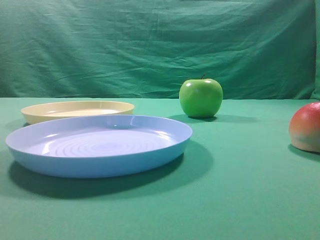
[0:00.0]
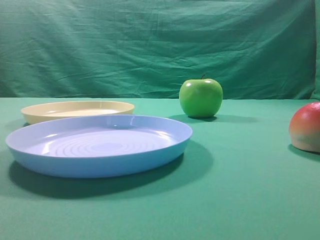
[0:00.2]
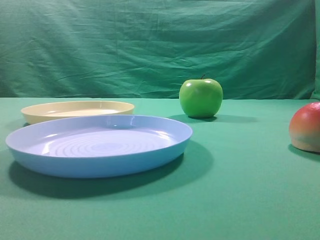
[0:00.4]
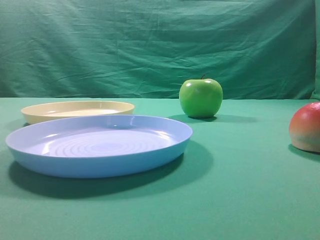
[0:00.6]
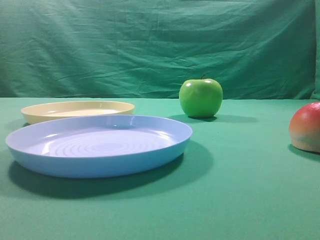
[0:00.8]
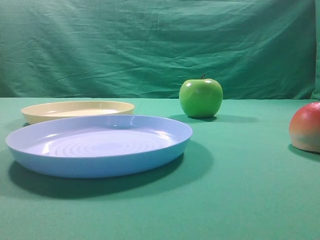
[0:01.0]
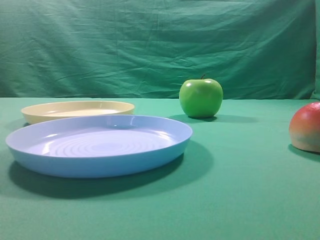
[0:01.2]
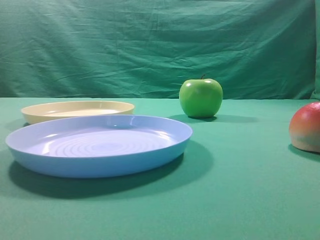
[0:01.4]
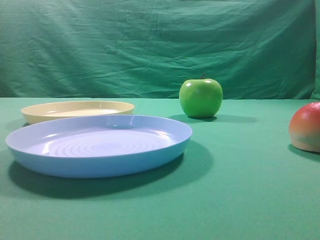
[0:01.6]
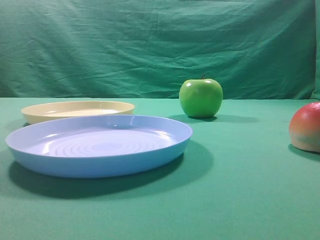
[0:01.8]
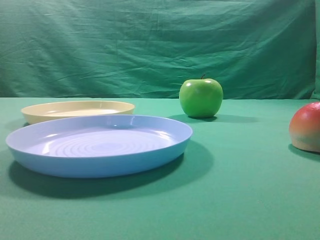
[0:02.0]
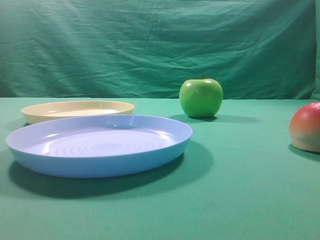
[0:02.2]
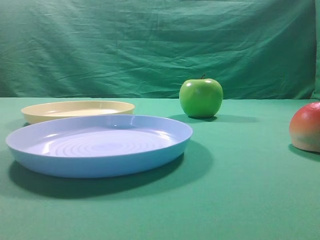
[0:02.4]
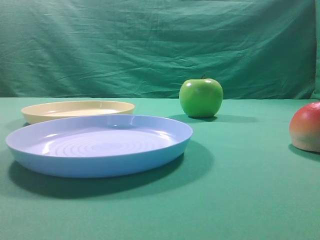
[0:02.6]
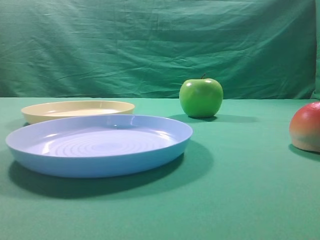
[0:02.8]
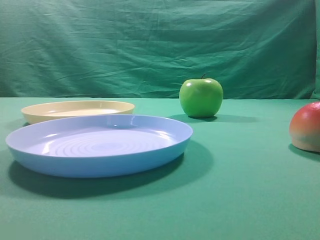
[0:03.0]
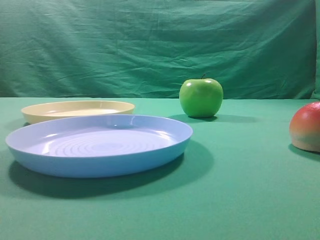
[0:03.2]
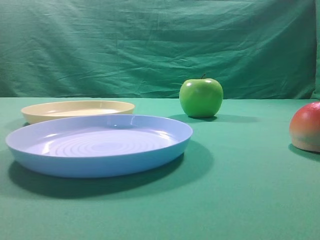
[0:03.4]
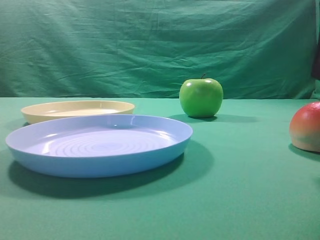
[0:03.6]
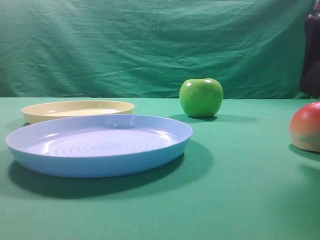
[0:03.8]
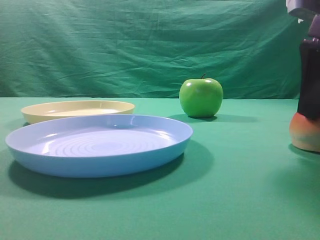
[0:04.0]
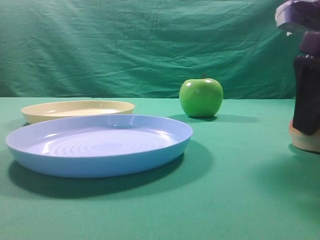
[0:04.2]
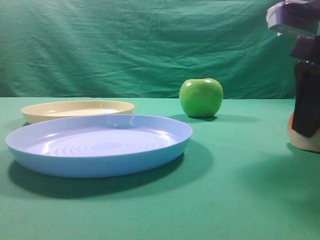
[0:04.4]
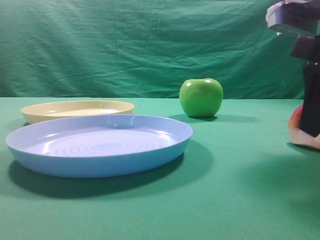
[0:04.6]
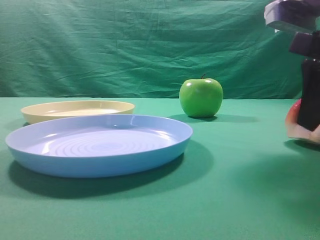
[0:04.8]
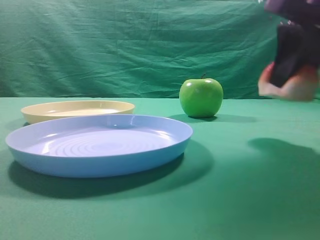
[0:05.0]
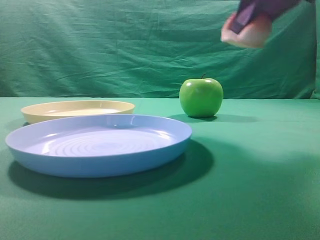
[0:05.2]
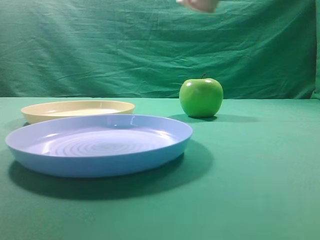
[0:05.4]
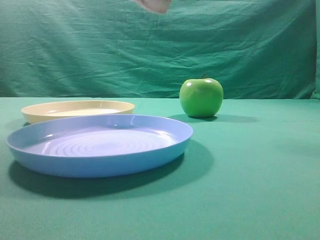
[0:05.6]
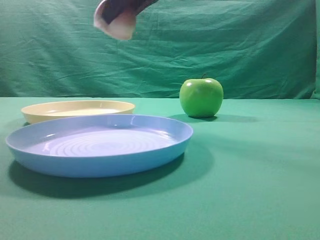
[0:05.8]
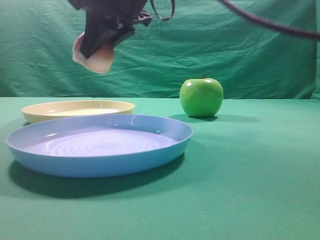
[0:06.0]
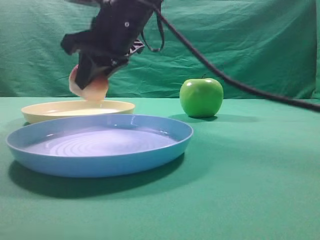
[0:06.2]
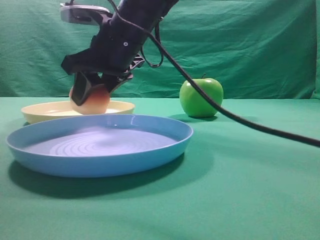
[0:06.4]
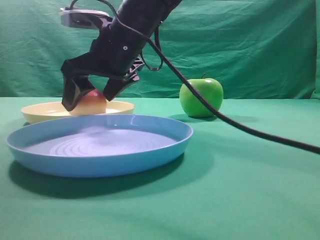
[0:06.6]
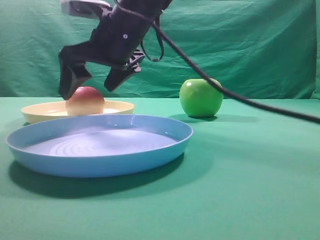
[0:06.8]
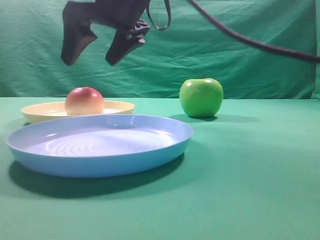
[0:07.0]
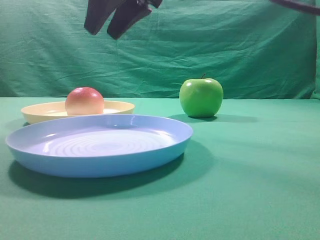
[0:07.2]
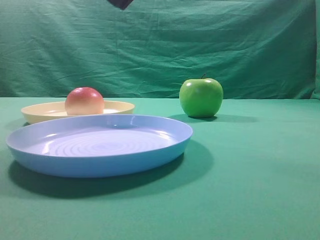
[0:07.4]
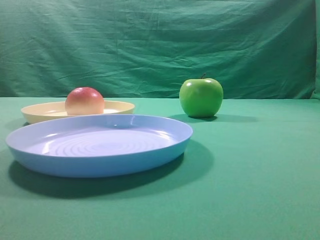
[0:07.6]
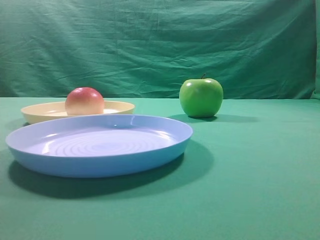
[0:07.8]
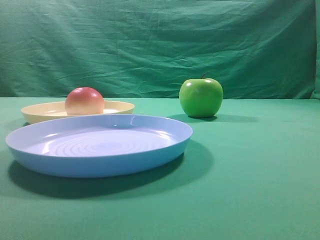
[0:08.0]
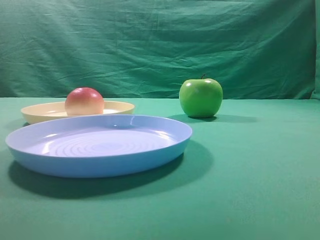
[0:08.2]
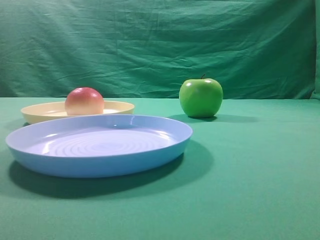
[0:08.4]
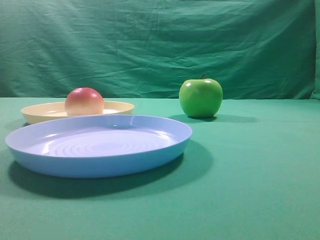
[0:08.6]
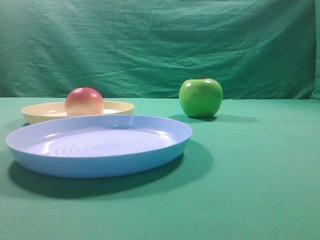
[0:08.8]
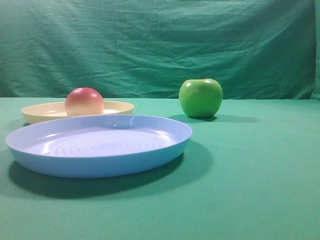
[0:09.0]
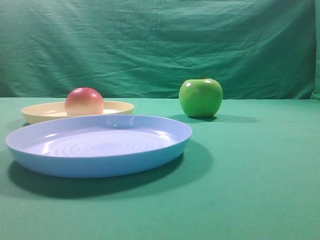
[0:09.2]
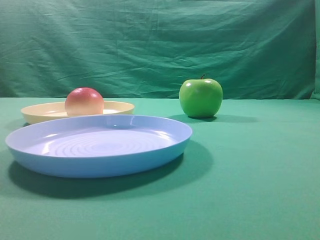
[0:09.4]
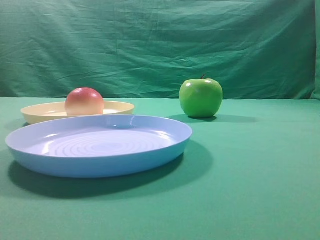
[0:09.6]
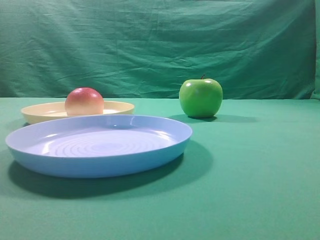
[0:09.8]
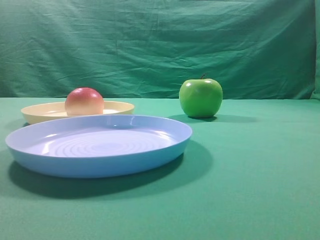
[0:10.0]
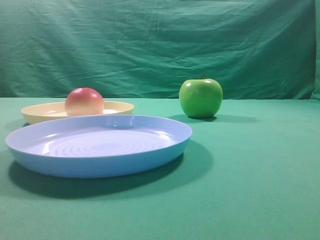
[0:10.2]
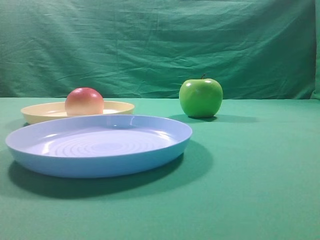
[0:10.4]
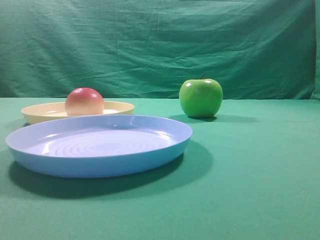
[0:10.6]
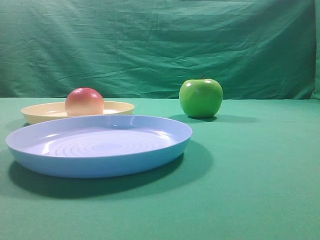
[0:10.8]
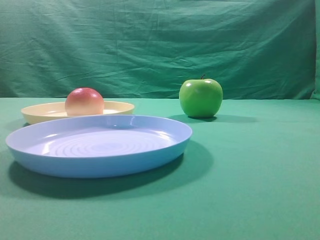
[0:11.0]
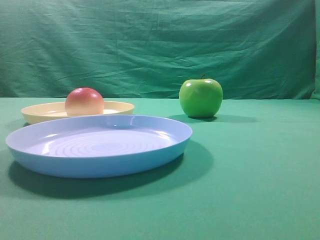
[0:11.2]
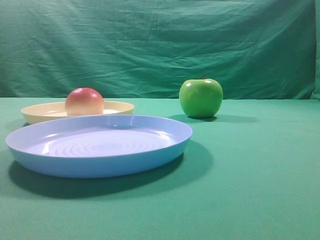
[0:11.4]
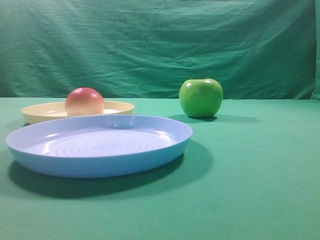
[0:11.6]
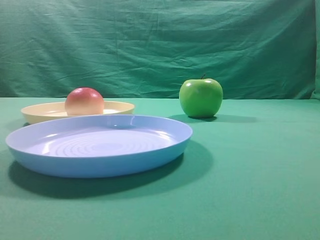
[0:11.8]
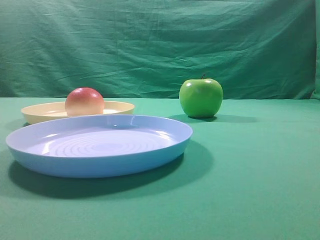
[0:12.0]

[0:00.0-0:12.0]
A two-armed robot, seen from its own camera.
Step, 0:05.2 to 0:06.8: Place the picked object on the yellow plate.
